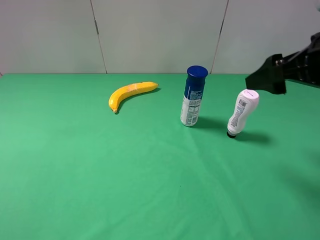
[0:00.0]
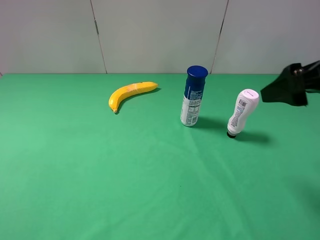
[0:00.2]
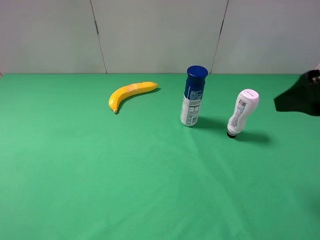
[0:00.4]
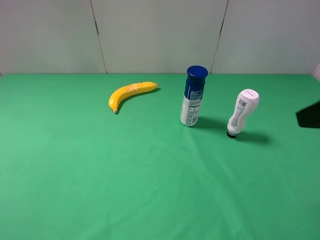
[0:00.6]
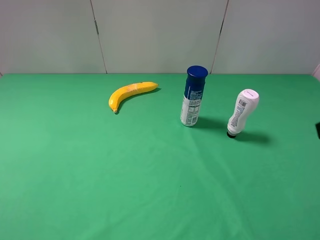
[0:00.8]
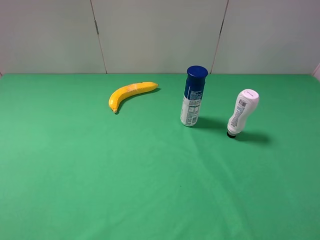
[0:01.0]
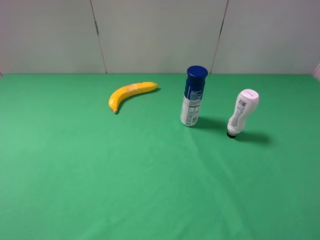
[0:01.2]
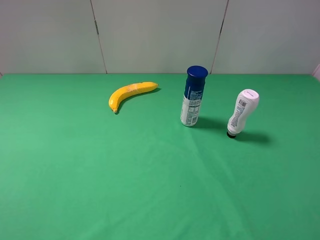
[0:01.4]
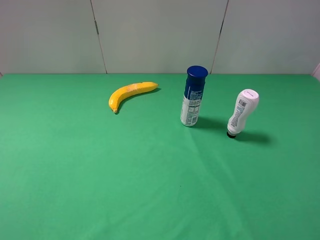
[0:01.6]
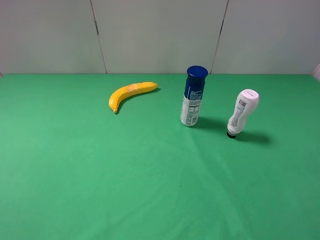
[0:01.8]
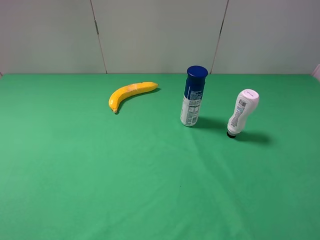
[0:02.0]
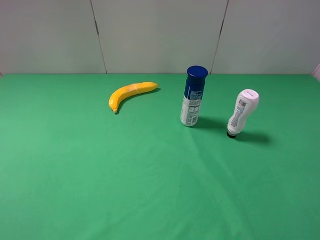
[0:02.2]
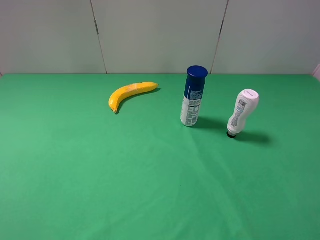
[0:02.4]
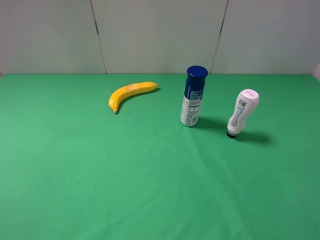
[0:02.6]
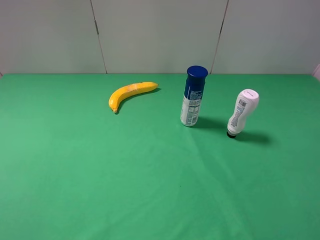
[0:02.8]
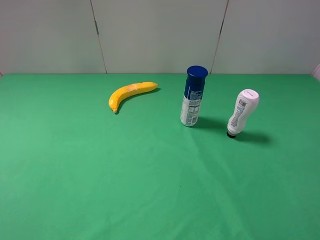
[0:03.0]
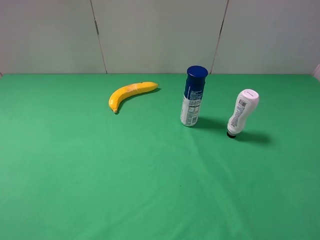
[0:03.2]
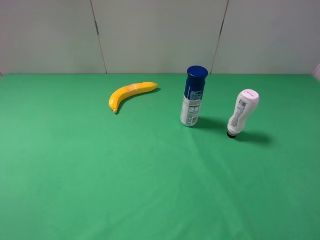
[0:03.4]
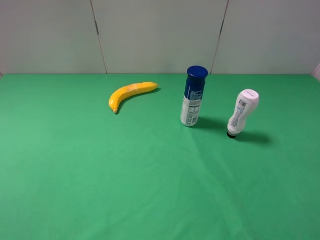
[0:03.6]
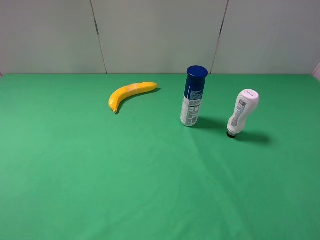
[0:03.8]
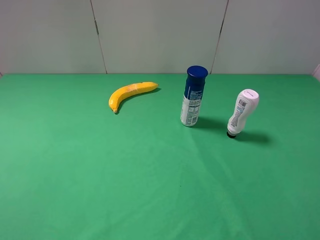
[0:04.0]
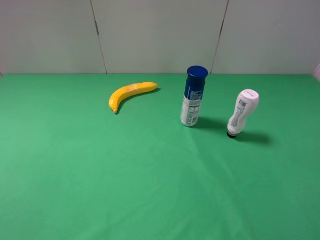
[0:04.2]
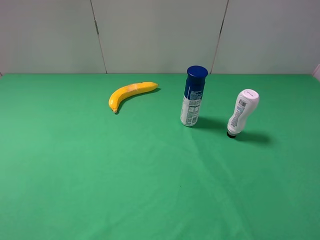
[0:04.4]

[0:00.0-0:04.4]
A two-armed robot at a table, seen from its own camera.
Task of the whole recording: use the left gripper to pick up the item and transfer it from the left gripper to the right gripper.
0:00.0 to 0:01.4: The right gripper moves backward, roughly 20 cm.

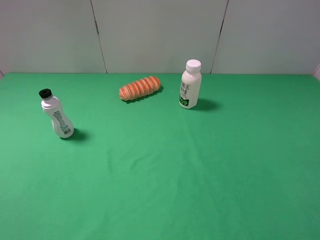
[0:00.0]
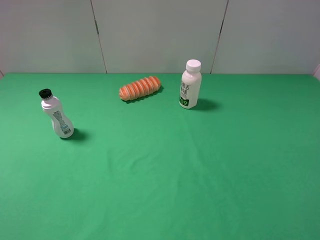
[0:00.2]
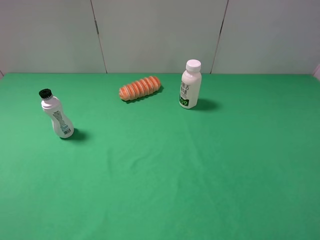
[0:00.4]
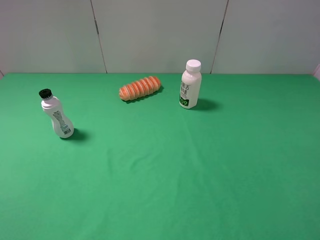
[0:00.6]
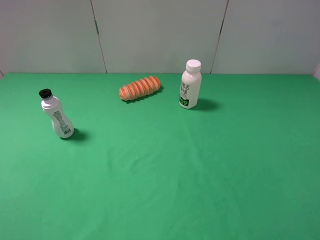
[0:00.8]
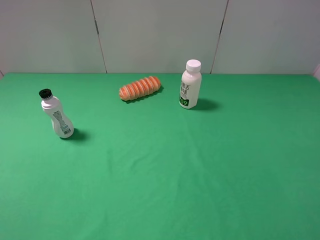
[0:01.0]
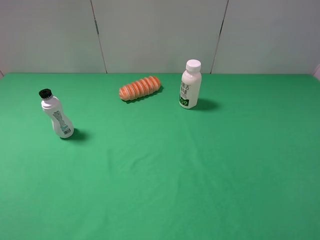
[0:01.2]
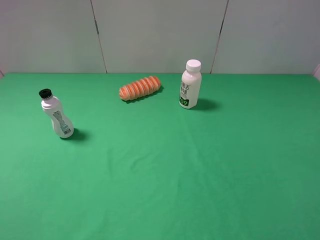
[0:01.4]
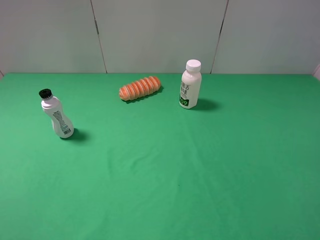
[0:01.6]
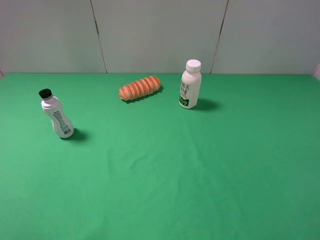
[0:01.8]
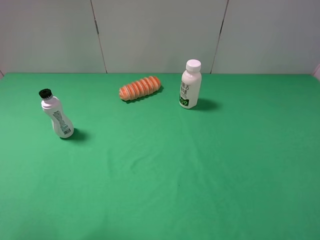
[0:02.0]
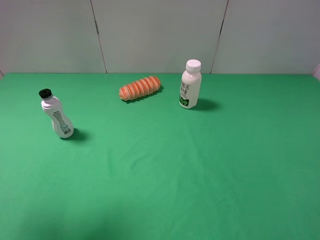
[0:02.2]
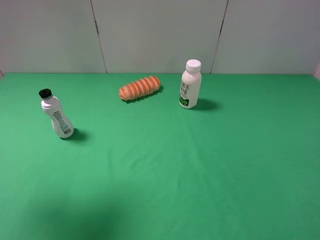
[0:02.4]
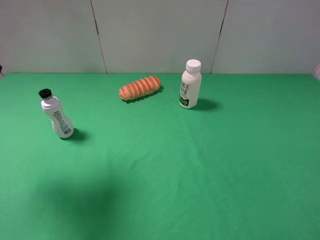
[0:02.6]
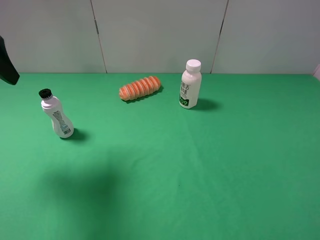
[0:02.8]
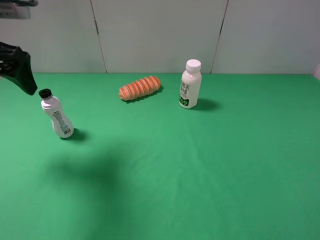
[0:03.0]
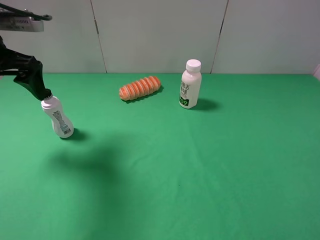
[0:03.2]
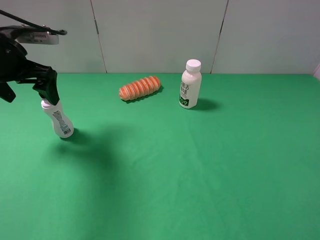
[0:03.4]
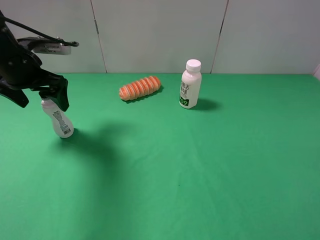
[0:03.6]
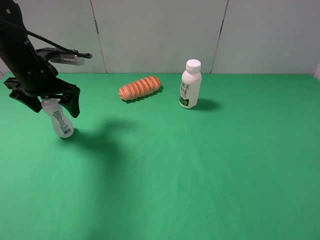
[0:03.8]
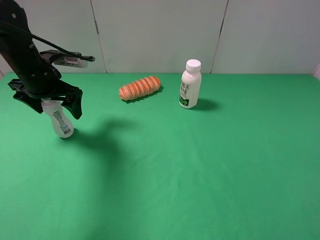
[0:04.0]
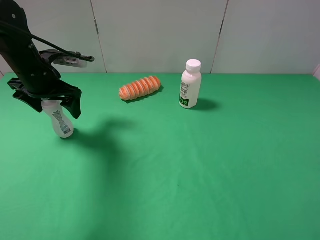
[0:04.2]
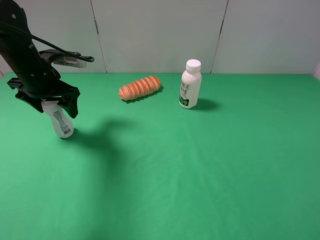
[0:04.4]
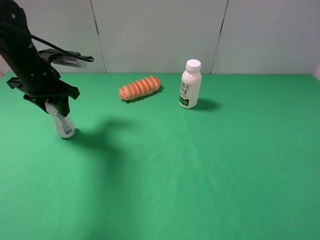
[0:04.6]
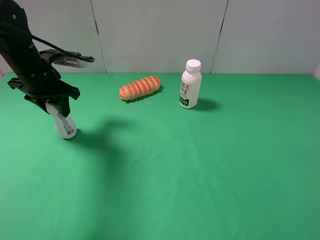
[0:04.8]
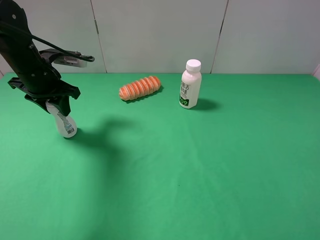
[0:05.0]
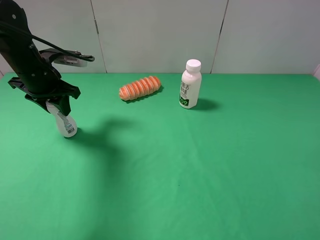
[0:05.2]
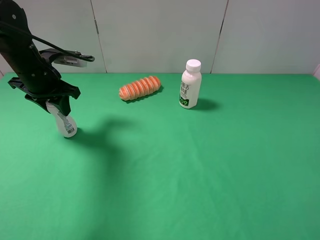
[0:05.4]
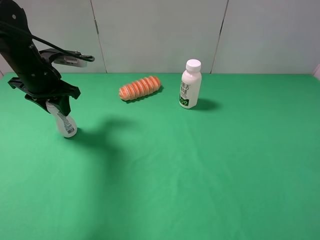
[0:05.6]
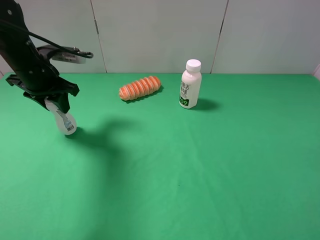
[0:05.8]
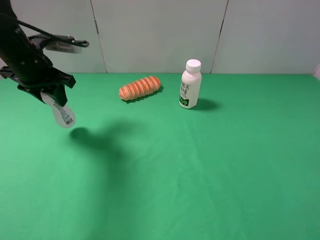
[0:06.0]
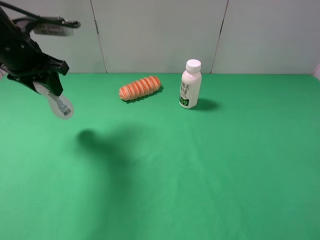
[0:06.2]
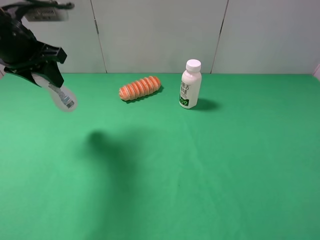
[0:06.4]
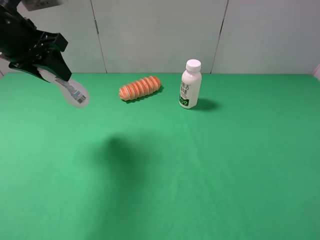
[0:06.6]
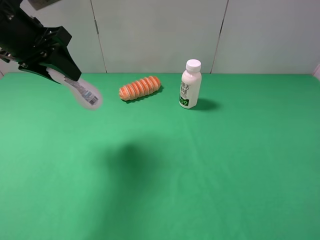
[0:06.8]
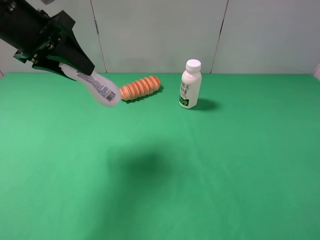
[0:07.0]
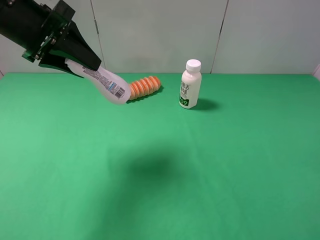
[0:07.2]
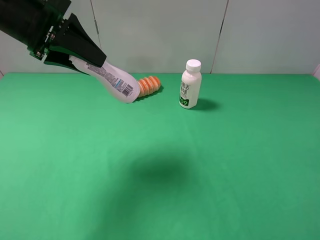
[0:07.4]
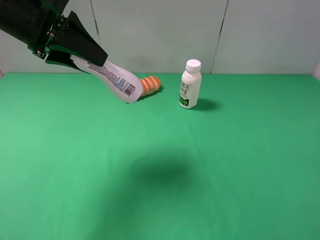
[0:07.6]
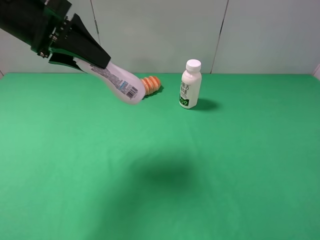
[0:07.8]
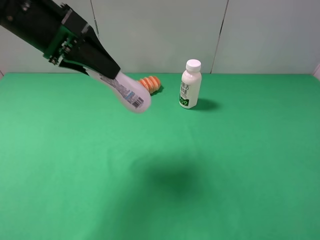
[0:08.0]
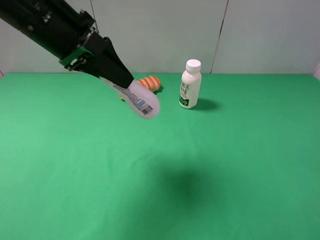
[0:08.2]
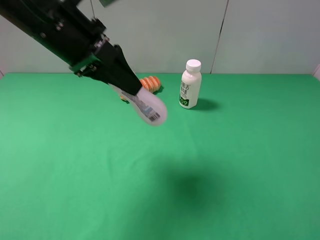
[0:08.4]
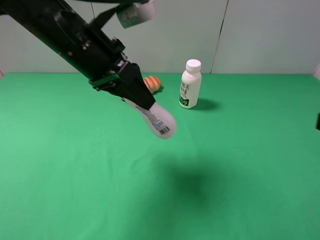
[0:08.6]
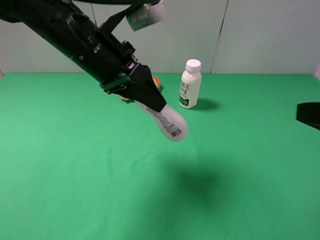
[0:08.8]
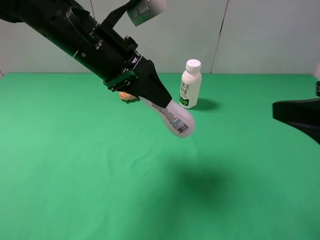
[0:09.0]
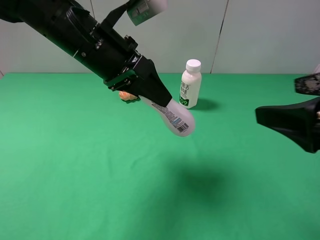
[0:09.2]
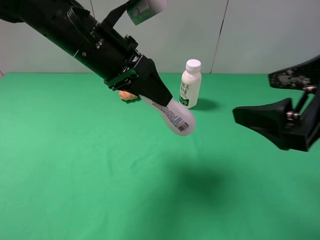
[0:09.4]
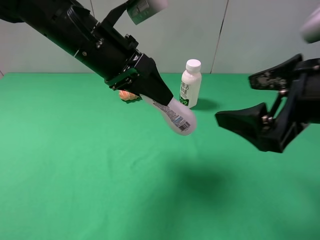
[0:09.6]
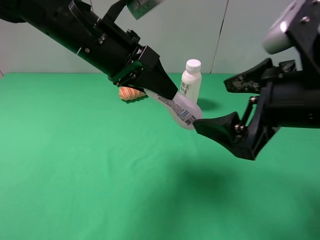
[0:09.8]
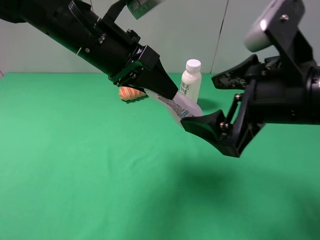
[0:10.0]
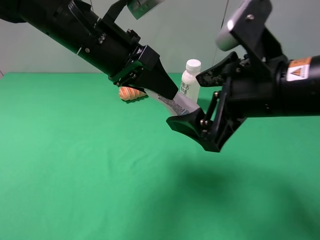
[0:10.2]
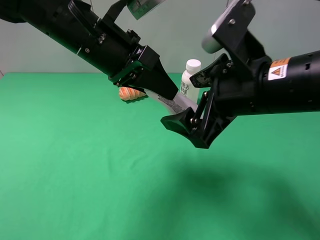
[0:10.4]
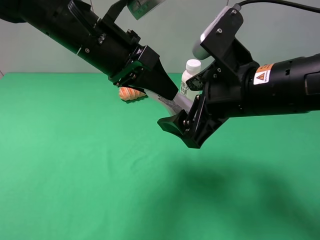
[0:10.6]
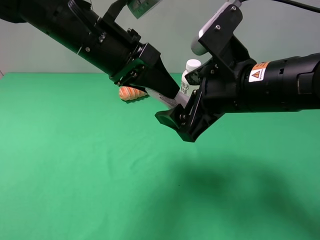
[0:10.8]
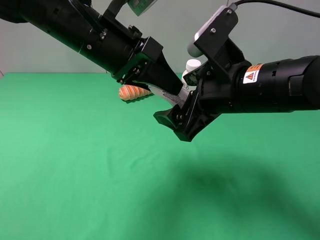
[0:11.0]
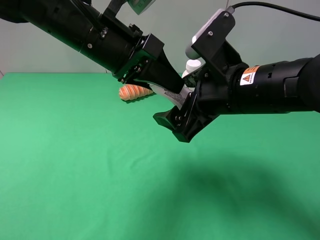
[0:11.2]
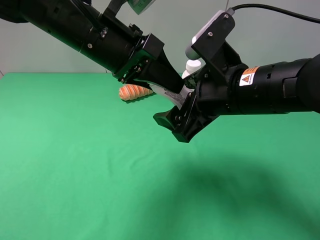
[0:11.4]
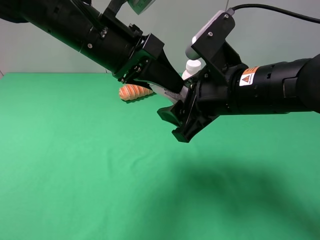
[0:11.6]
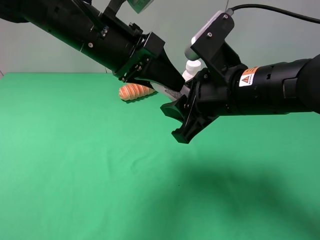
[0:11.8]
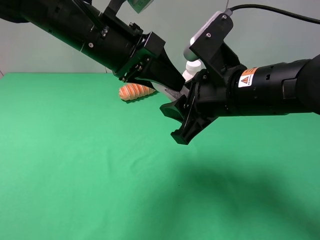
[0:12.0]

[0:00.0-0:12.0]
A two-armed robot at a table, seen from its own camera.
Task of the whole recording: use the left gripper to pick up the item and transfer it from the left gripper to the right gripper.
Step, 0:00.0 to 0:04.6: Use the left gripper to grab the cleaning agent on the left side of the table.
0:01.6 to 0:03.0: The left gripper heads forward, covering some 25 cm.
0:03.0 to 0:04.4: The left gripper travels downward and forward by roughly 15 cm.
0:04.4 to 0:06.0: The left gripper closes.
0:06.0 to 0:07.6: The left gripper travels upward, backward and to the right by about 10 cm.
0:07.6 to 0:09.0: The right gripper is displaced forward and to the left by roughly 10 cm; the left gripper heads to the right, covering approximately 10 cm.
0:09.0 to 0:10.4: The right gripper travels to the left and forward by approximately 15 cm.
0:10.4 to 0:12.0: The right gripper closes its fingers.

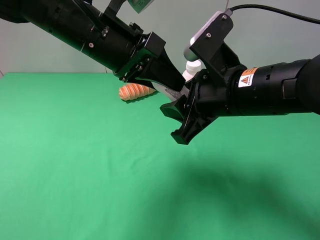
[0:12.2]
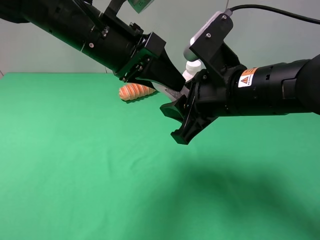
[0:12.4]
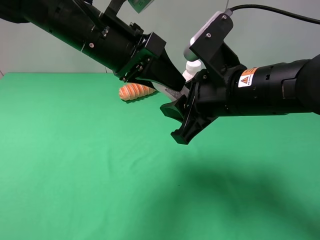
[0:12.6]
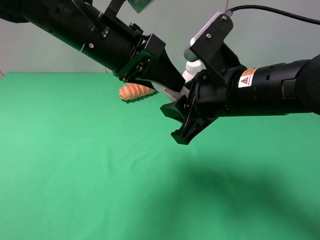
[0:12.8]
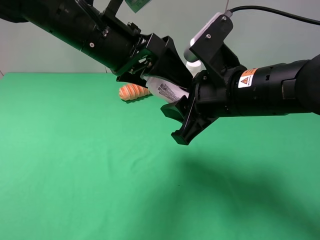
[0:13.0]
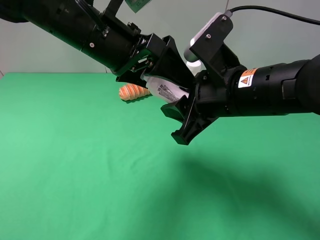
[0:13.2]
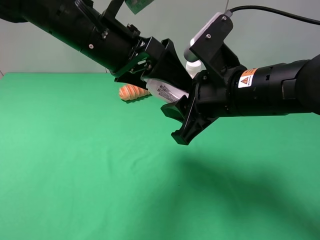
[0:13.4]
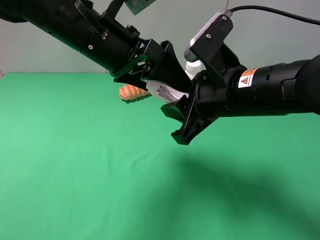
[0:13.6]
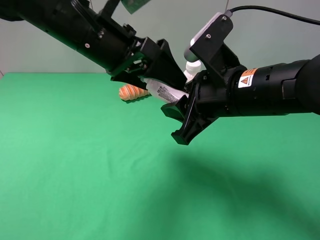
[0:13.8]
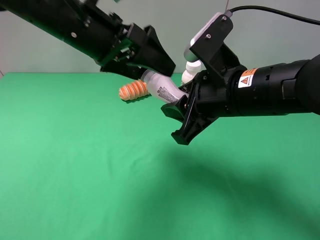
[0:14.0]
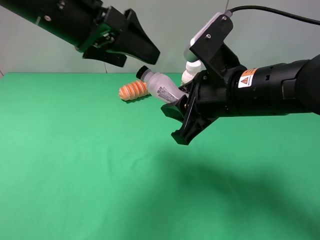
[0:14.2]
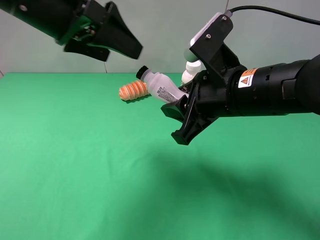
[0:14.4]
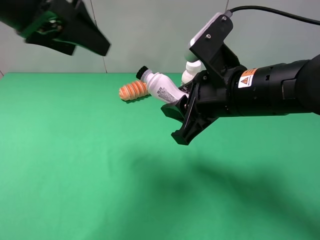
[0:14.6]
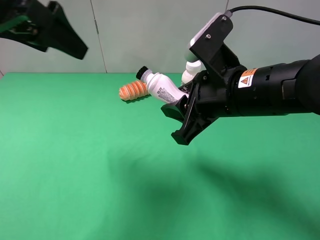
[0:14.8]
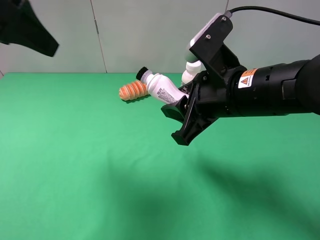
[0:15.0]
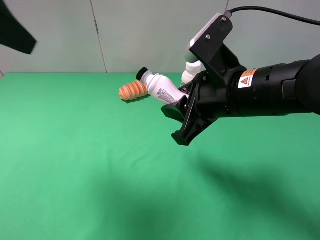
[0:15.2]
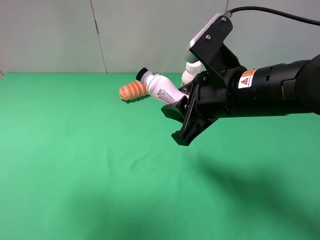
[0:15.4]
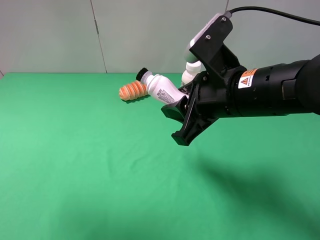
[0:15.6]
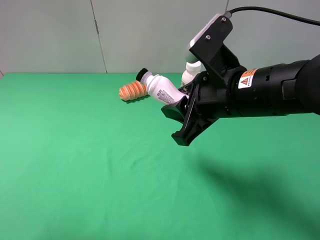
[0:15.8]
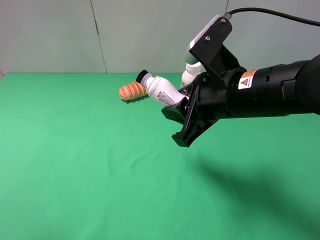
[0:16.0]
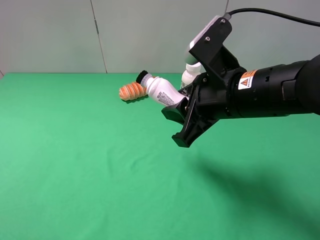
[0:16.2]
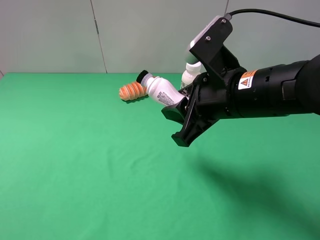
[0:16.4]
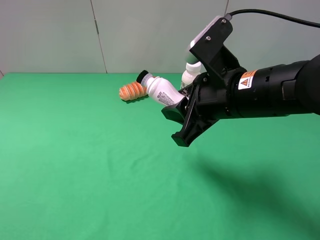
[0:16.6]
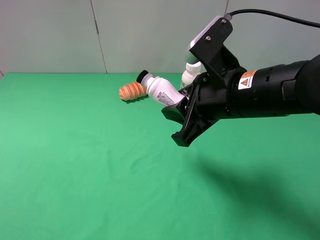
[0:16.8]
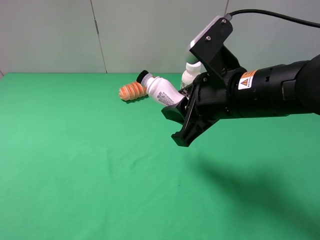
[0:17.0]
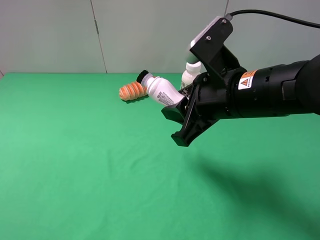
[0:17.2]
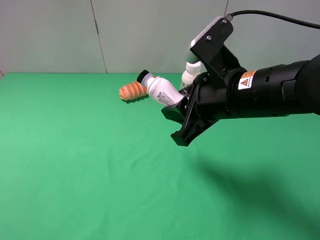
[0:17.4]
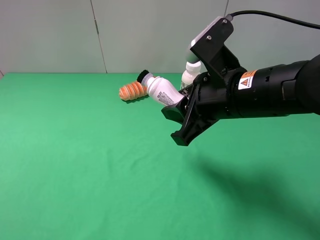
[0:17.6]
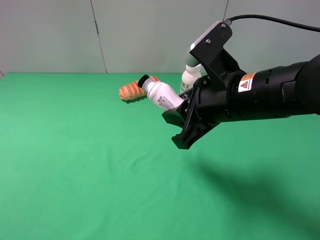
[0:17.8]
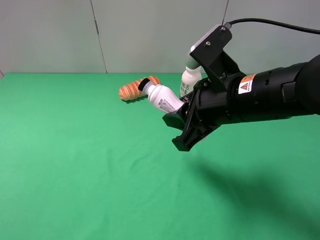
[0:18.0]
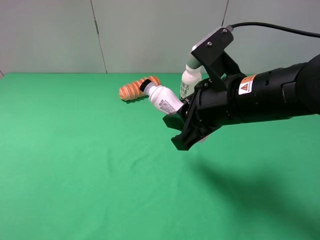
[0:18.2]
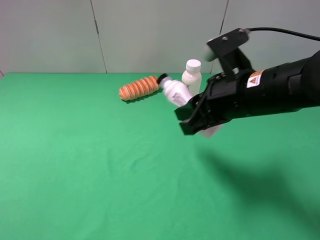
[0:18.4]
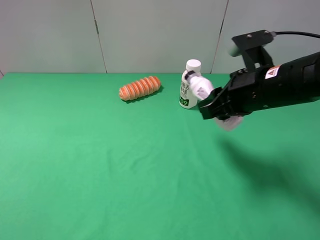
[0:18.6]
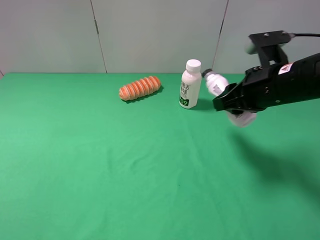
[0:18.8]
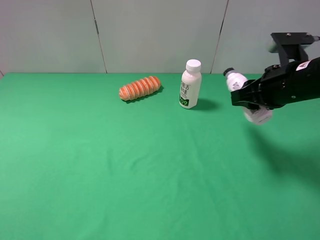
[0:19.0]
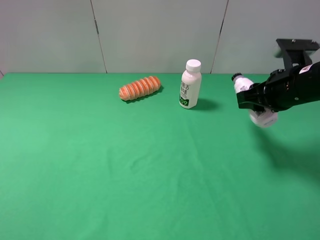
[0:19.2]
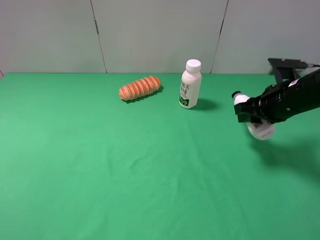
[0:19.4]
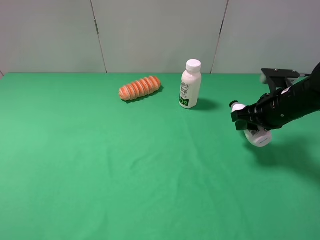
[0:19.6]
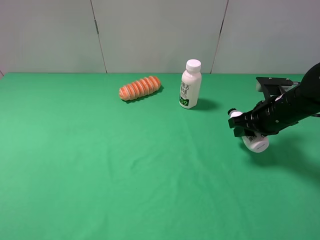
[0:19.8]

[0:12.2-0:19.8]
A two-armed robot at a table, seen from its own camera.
Task of the whole recording: use the left gripper to pick up the item and transfer it from the left gripper to the right gripper.
0:12.2 to 0:13.8: The left gripper opens up.
0:13.8 to 0:15.2: The left gripper heads to the left, upward and backward, covering roughly 20 cm.
0:15.2 to 0:16.8: The left gripper goes approximately 25 cm backward and downward.
0:18.2 to 0:19.8: The right gripper travels to the right, downward and forward by approximately 20 cm.
